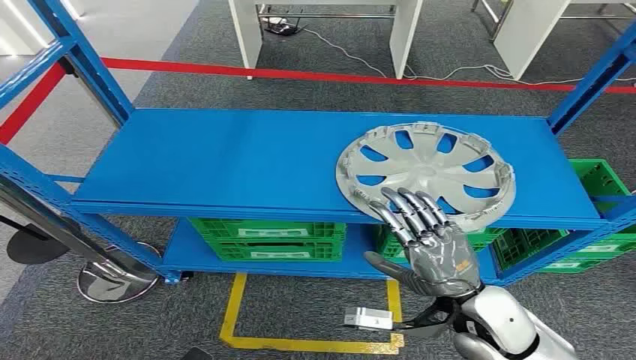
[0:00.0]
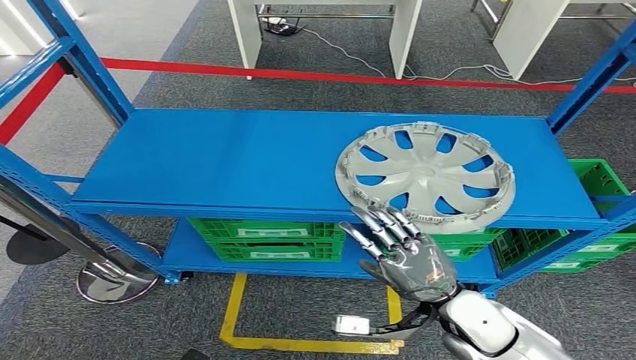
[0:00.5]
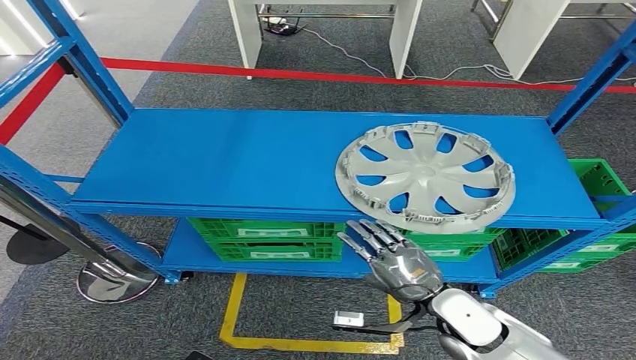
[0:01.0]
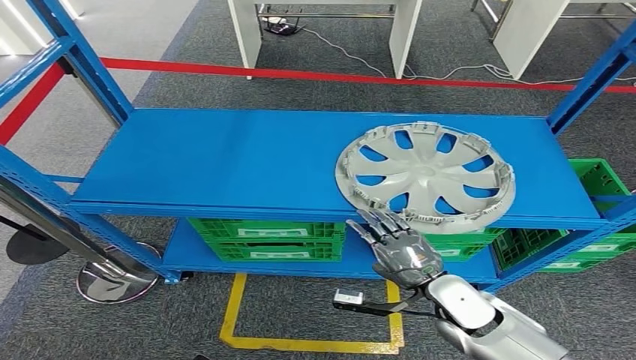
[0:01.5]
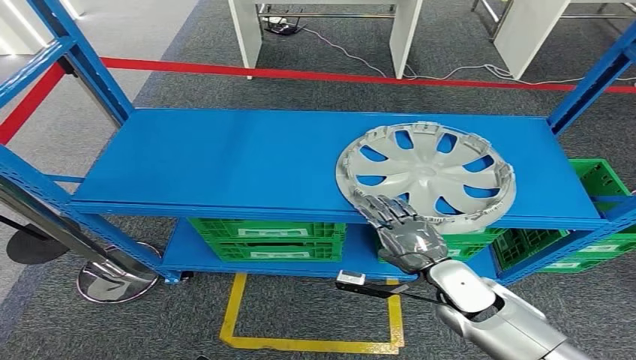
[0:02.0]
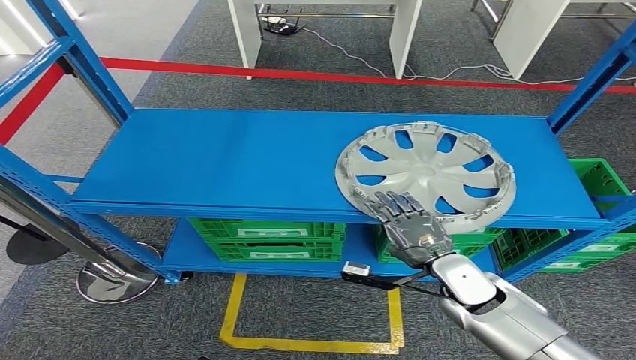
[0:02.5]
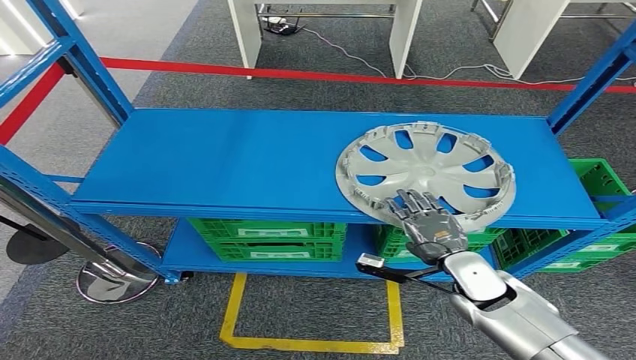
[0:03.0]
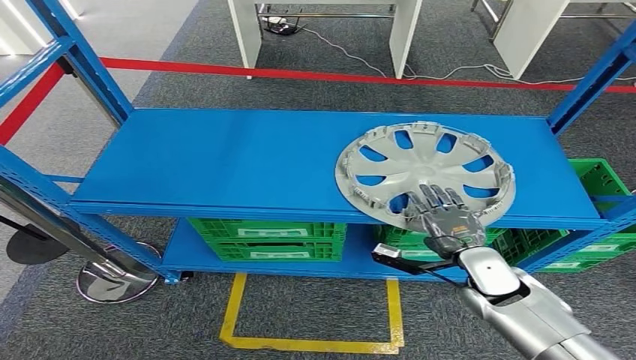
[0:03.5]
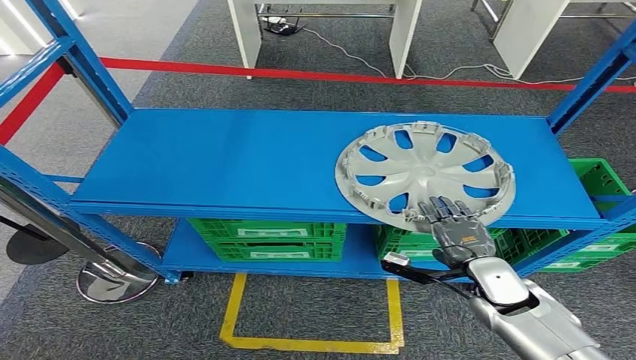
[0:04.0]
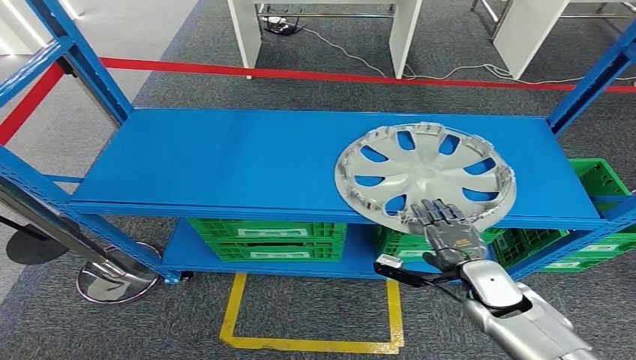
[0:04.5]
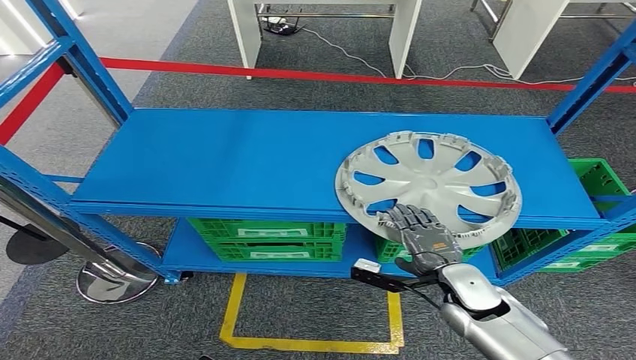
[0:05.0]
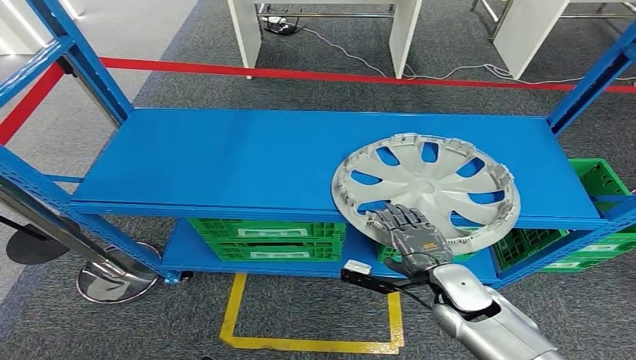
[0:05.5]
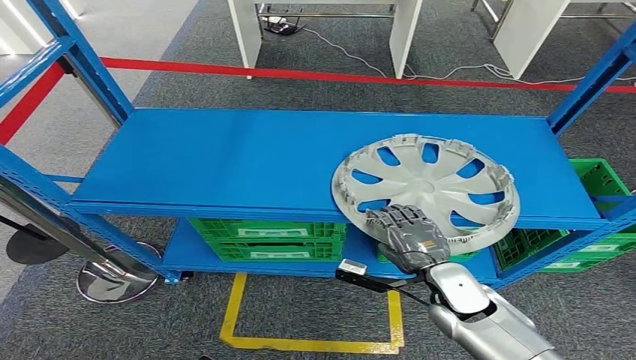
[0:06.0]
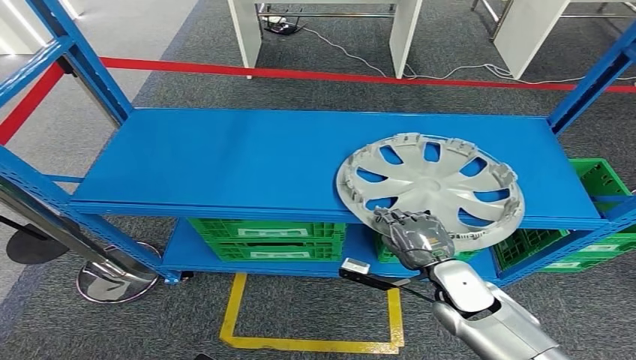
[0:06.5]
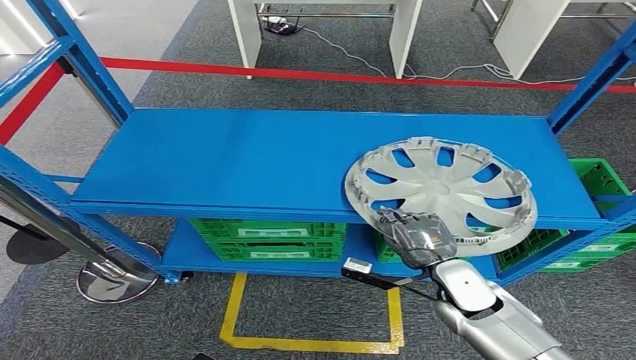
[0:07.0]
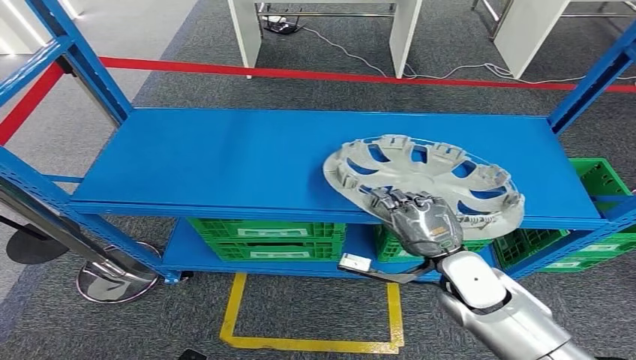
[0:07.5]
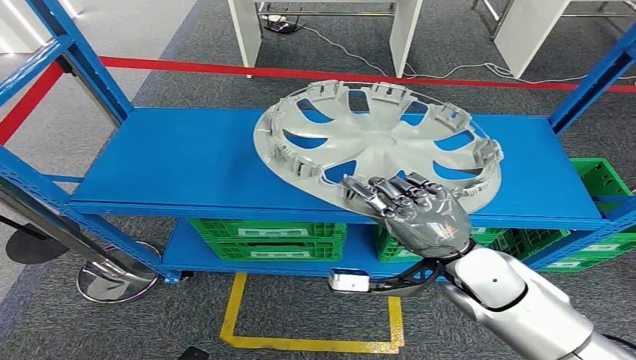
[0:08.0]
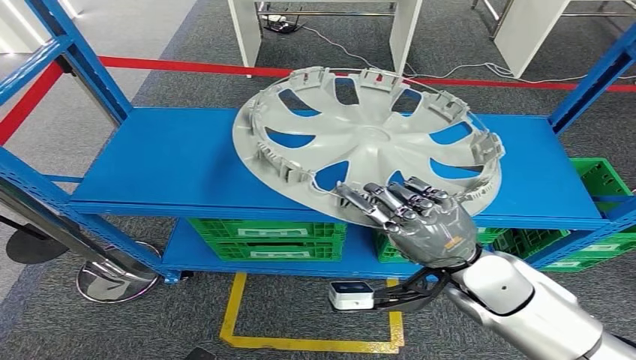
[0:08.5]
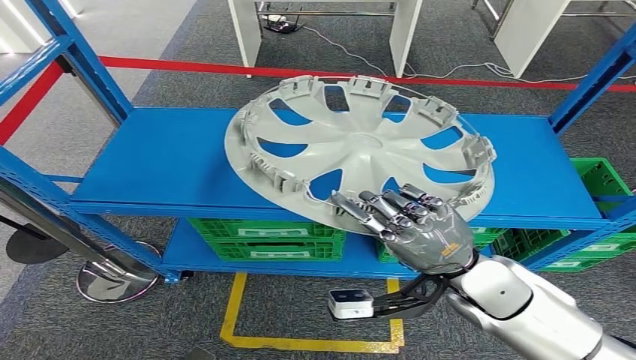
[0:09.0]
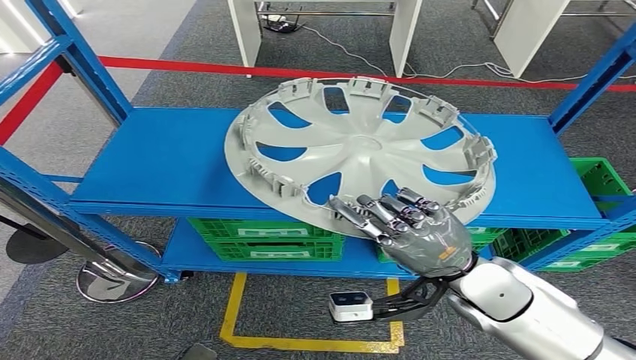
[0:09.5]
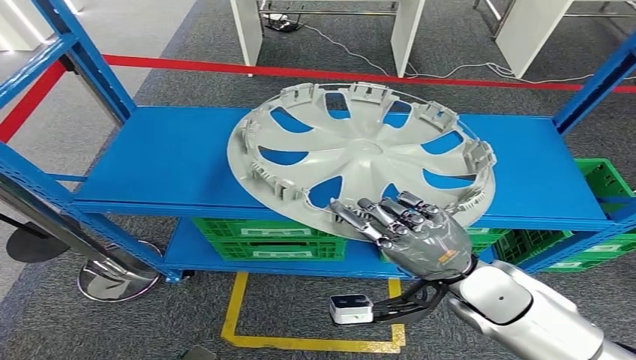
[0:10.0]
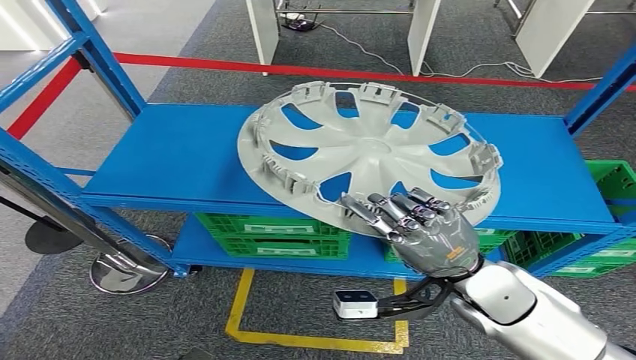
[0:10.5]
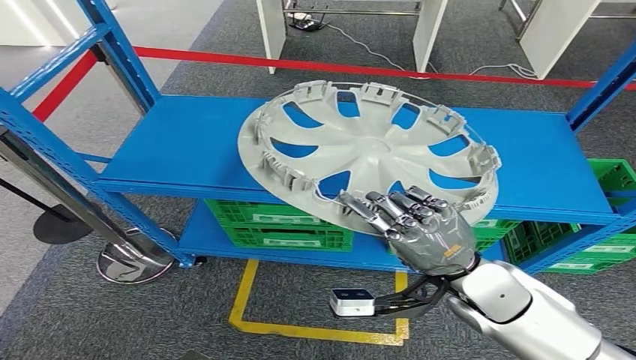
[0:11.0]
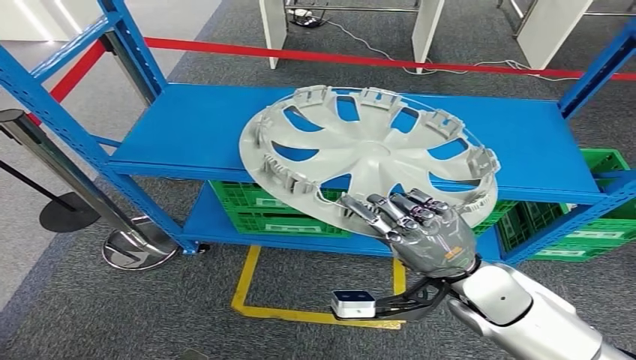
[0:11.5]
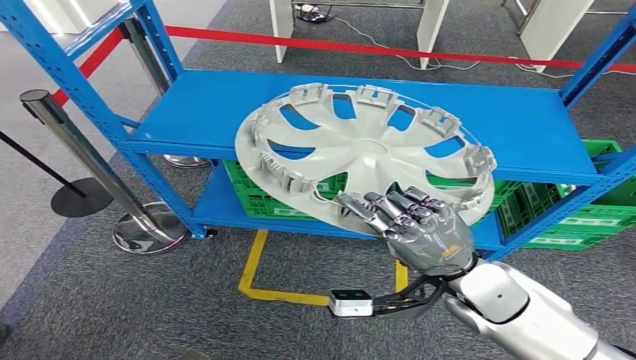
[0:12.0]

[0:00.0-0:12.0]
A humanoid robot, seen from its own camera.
Step, 0:00.0 to 0:11.5: Pick up the small component from the shelf.
0:02.0 to 0:04.0: The right hand heads to the right, covering approximately 5 cm.
0:04.0 to 0:06.0: The right hand travels to the left by about 10 cm.

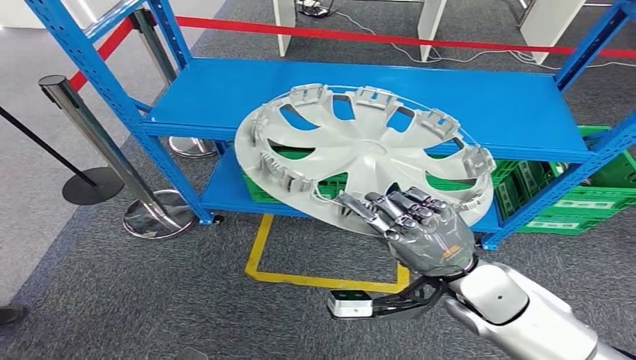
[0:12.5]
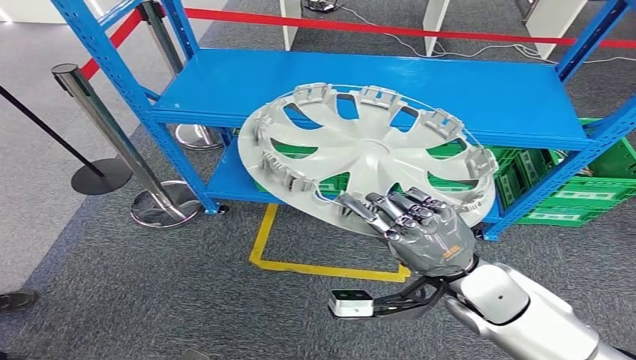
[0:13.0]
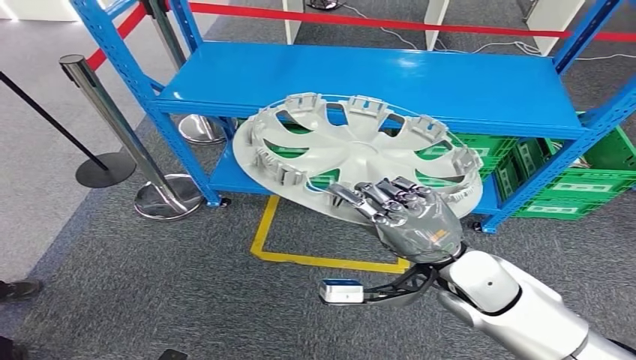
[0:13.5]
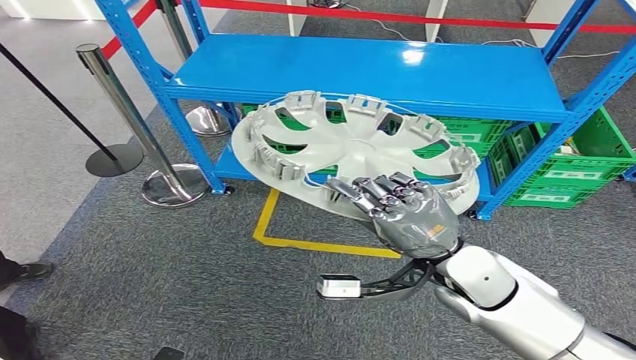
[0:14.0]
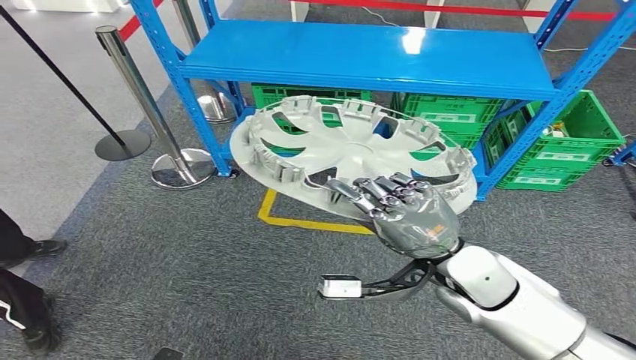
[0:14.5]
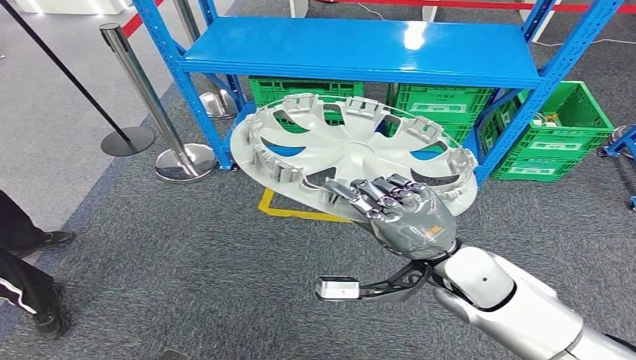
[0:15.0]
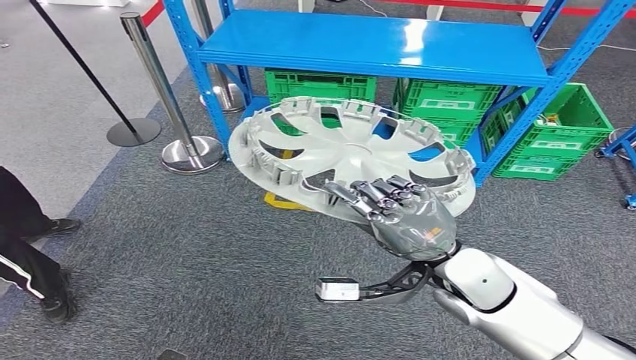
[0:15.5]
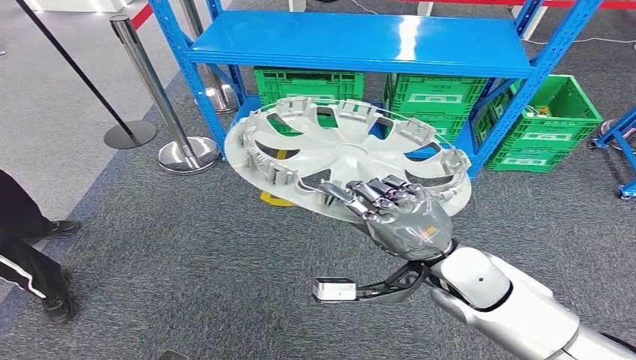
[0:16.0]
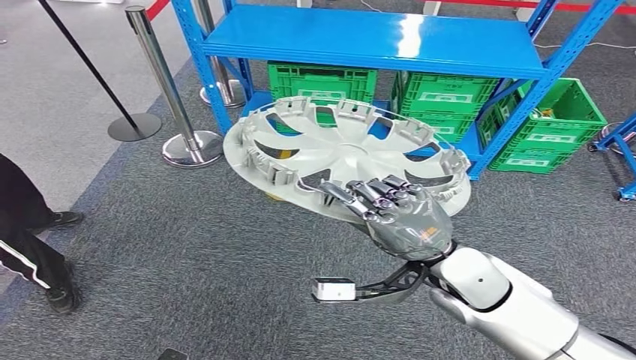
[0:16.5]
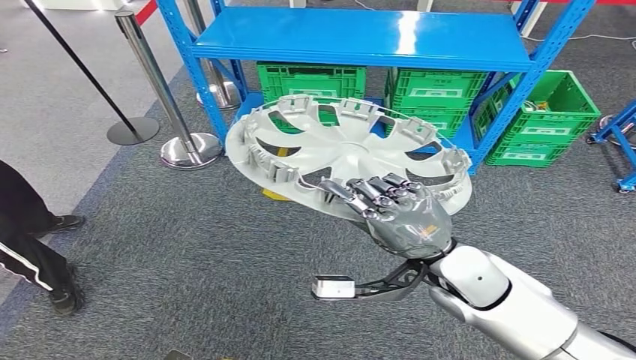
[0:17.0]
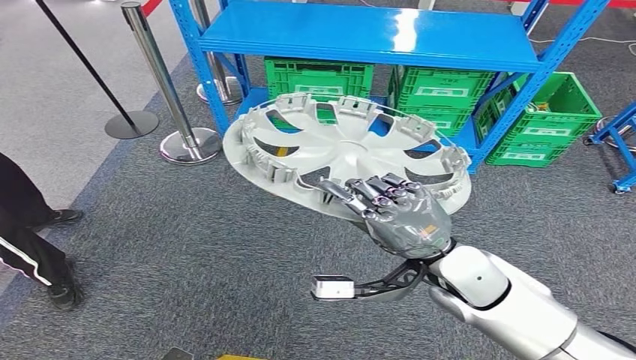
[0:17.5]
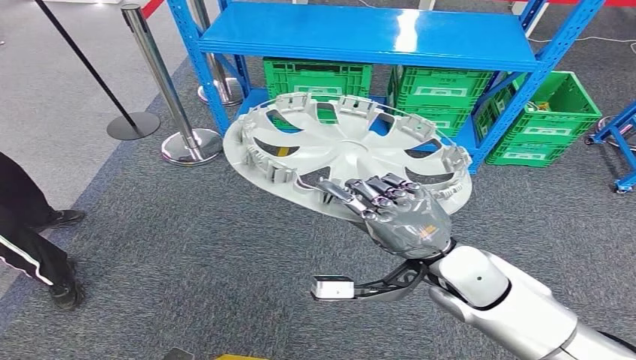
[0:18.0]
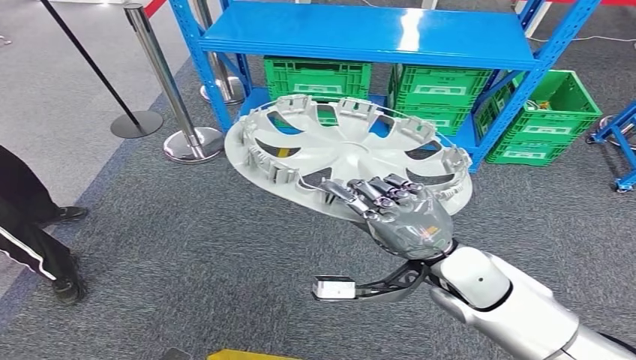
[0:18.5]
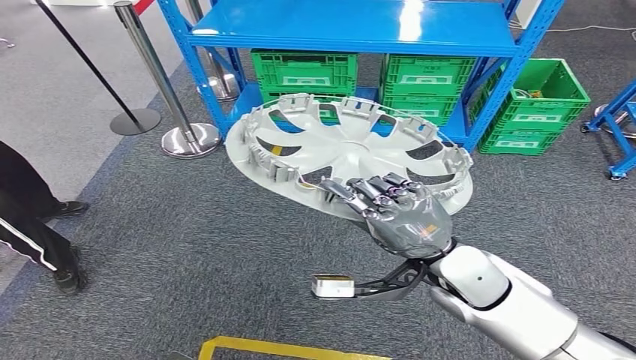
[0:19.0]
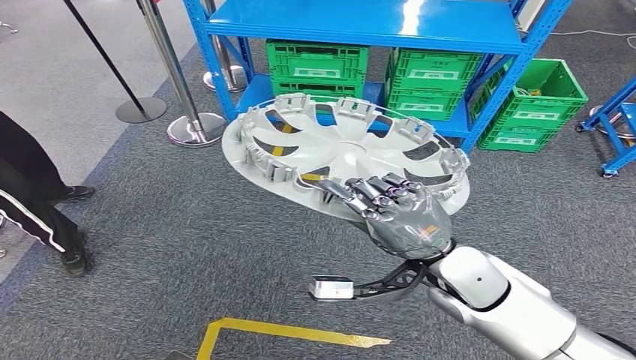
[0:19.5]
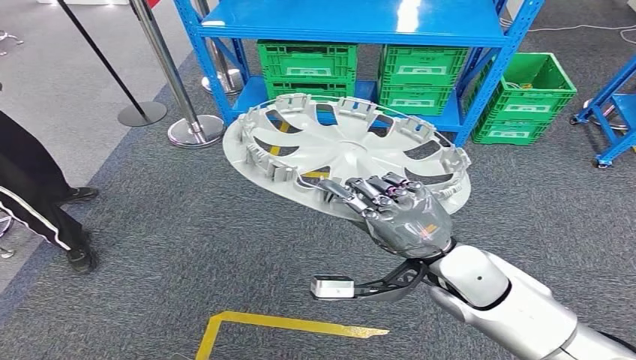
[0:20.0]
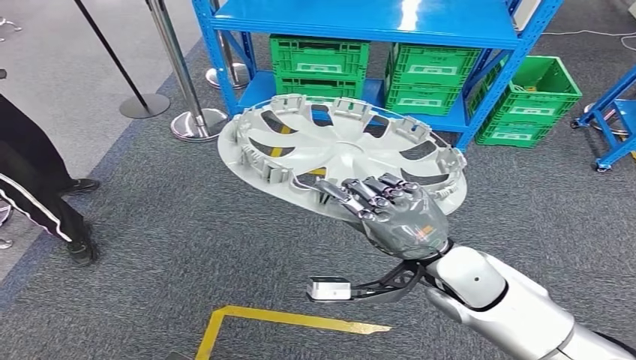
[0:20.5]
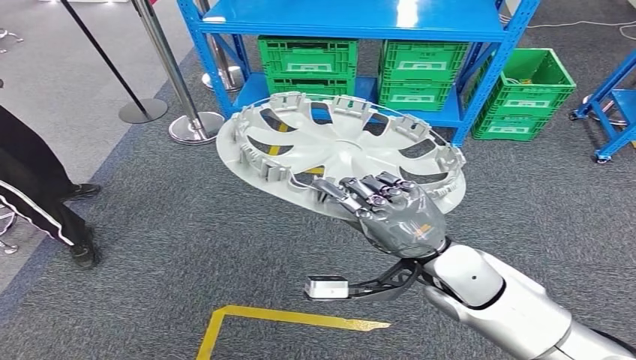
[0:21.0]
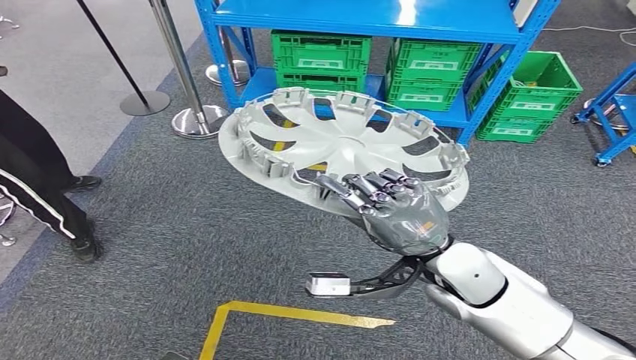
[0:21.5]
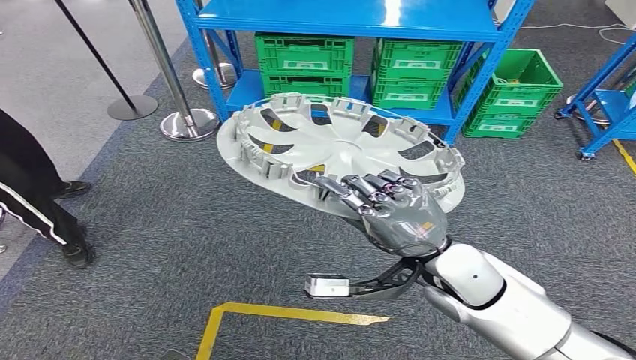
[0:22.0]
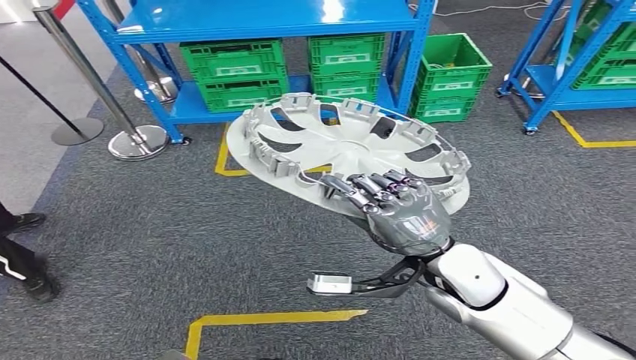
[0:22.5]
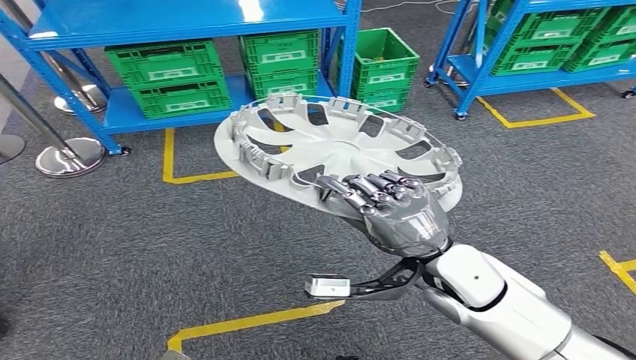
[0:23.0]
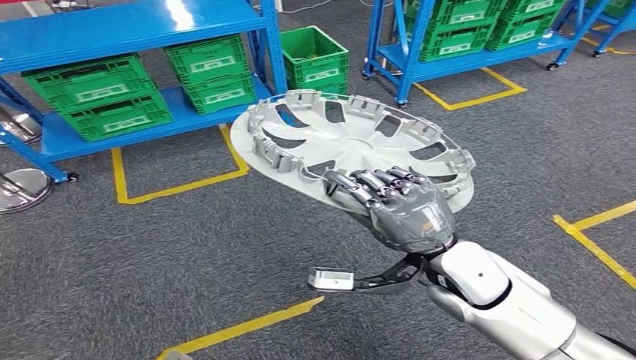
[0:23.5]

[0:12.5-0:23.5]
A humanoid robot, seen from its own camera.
0:16.0 to 0:18.0: Both hands stay about where they are.
